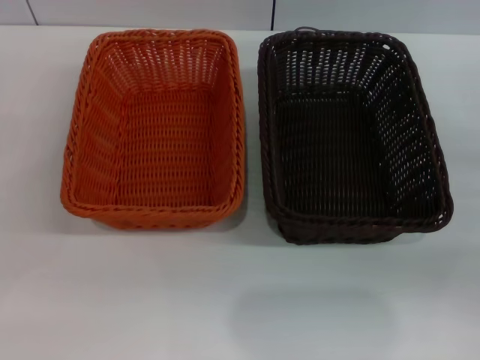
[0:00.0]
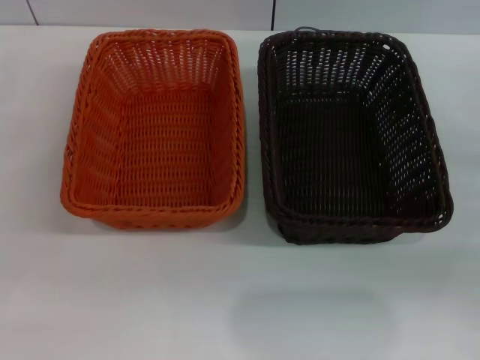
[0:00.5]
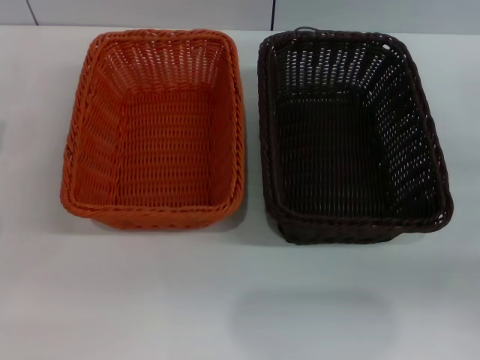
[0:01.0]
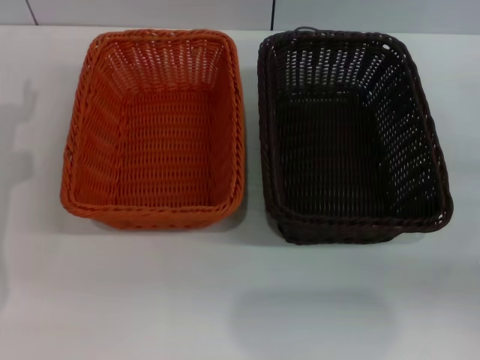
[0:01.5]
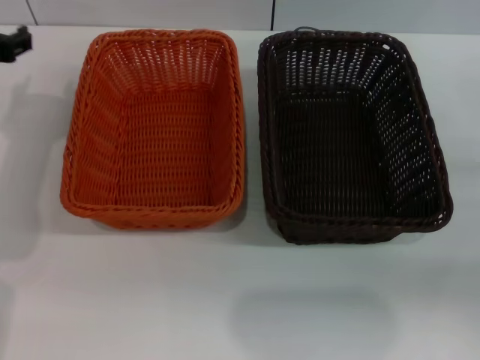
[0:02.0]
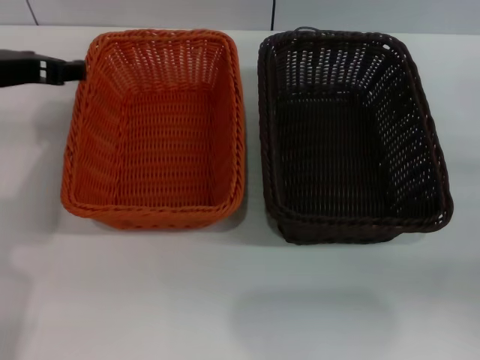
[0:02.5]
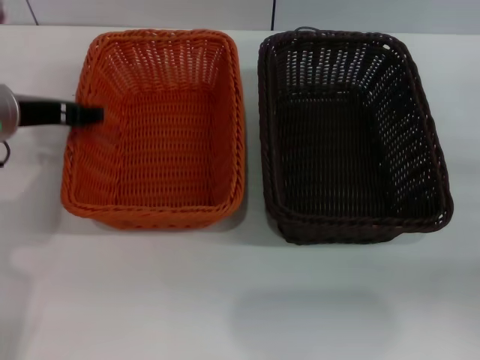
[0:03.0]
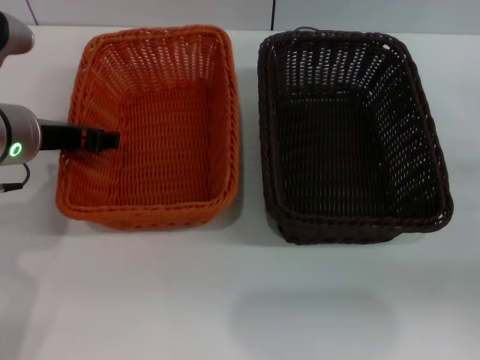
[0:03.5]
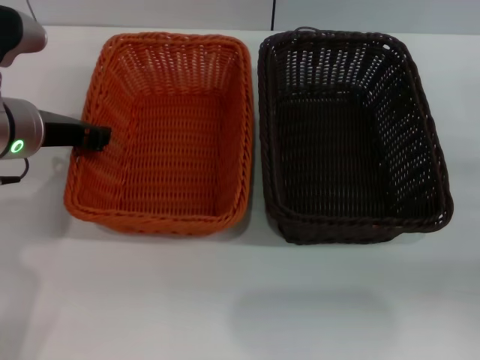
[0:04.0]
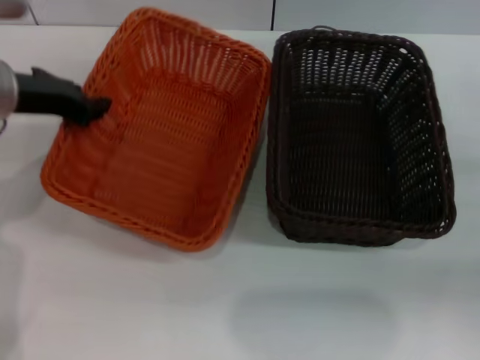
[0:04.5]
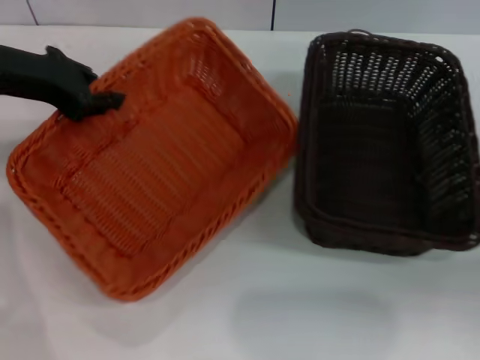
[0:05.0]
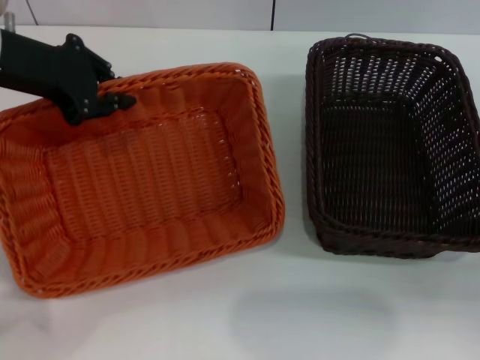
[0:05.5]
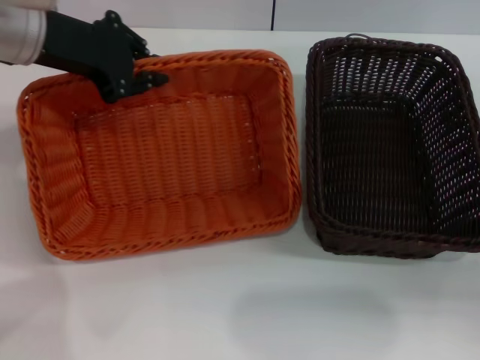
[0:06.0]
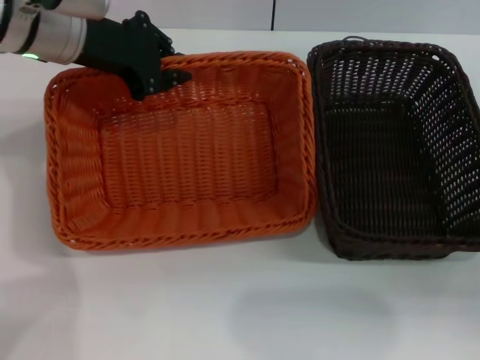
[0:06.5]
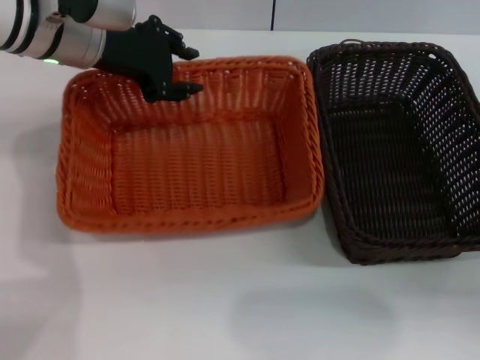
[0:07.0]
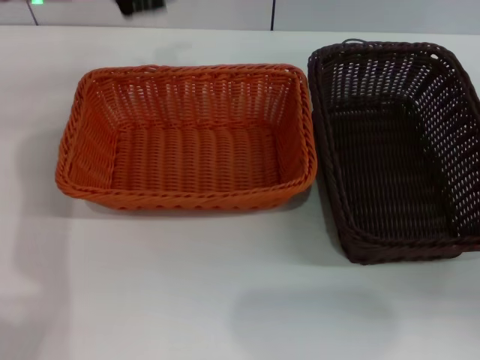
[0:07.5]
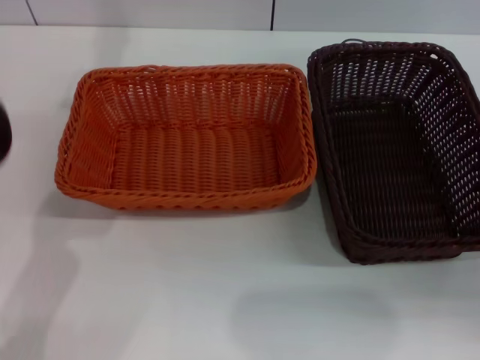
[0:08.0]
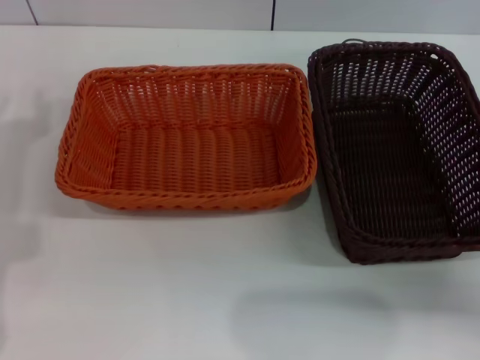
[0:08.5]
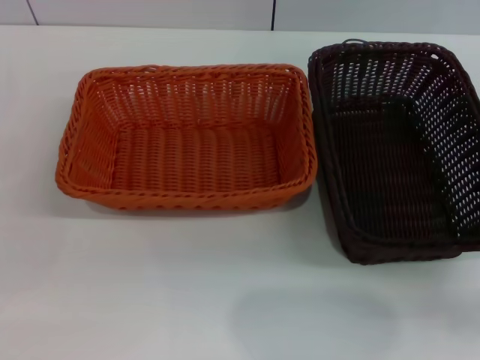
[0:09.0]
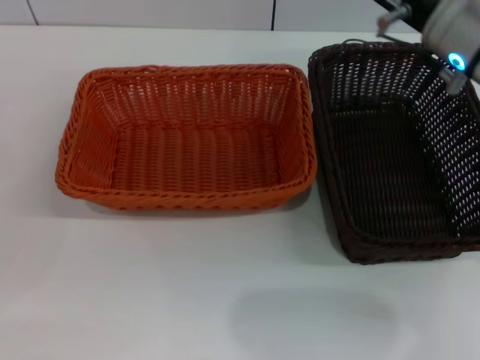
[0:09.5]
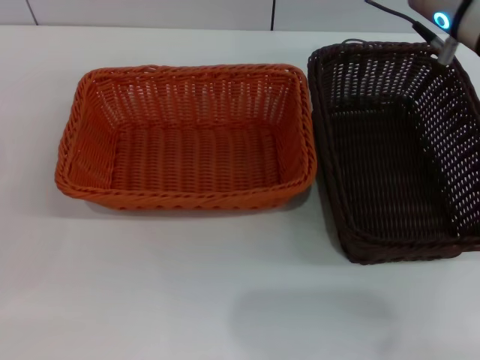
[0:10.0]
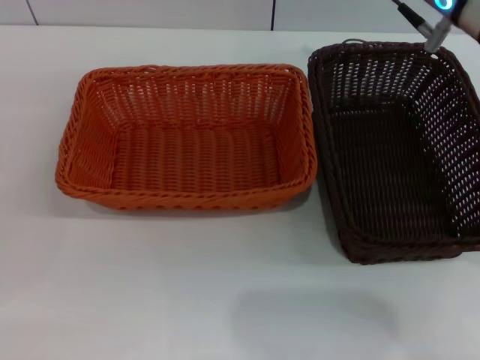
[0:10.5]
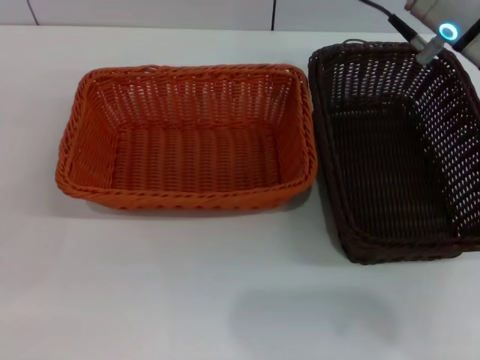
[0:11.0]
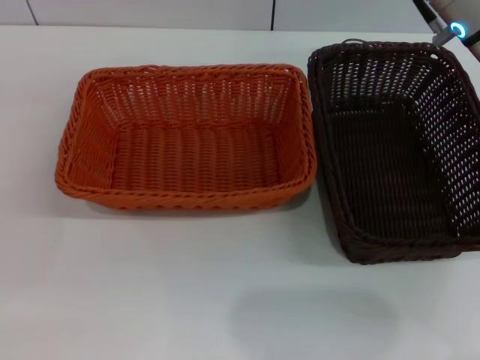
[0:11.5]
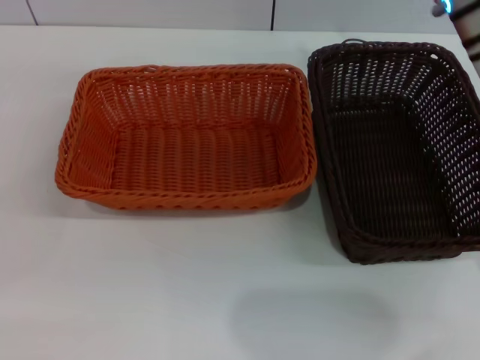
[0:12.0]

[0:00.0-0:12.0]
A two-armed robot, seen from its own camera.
Step, 0:00.0 to 0:04.5: Pick up the light basket with the left gripper.
Step, 0:05.0 to 0:07.0: Place the light basket in the center of view with the left gripper.
0:00.0 to 0:02.0: The left gripper shifts about 15 cm upward, forward and to the right.
0:02.0 to 0:04.0: The left gripper moves to the right, roughly 5 cm, and closes.
0:04.0 to 0:06.0: The left gripper moves upward and forward, some 10 cm, and closes up.
0:06.0 to 0:08.0: The left gripper opens.
0:08.0 to 0:10.0: The right gripper heads to the left, upward and forward, covering some 25 cm. The left gripper moves downward, backward and to the left, approximately 30 cm, and opens.

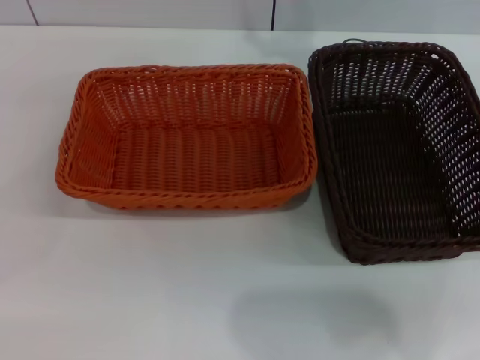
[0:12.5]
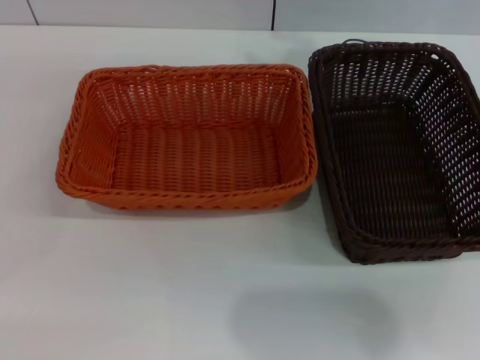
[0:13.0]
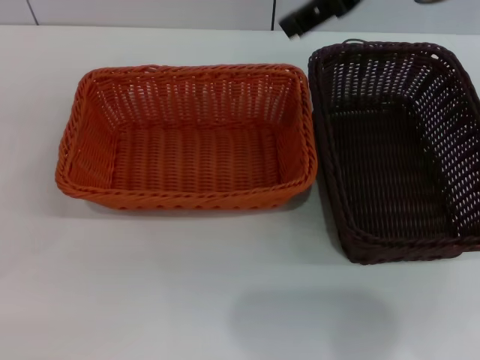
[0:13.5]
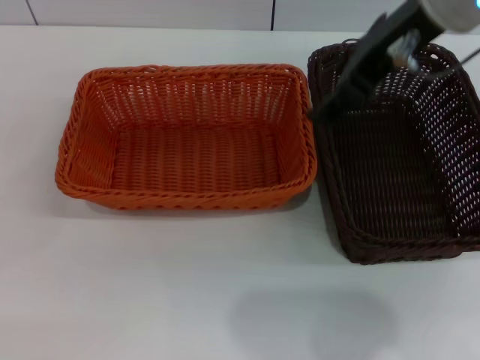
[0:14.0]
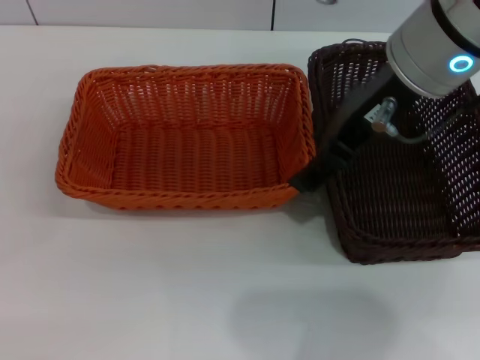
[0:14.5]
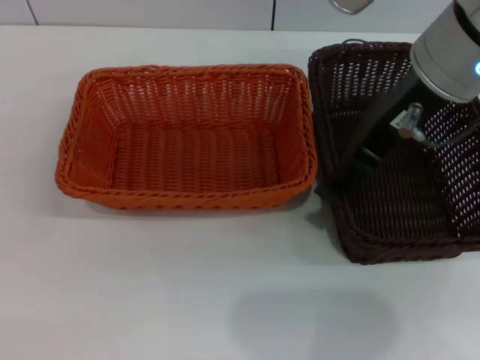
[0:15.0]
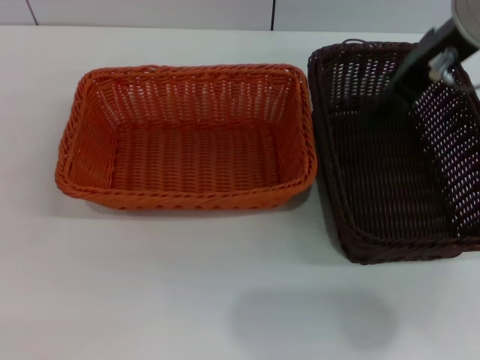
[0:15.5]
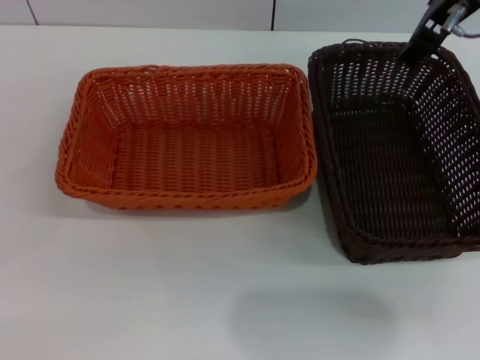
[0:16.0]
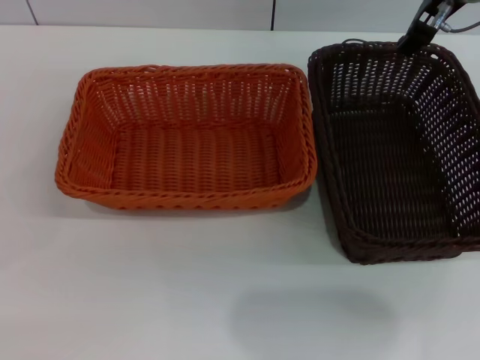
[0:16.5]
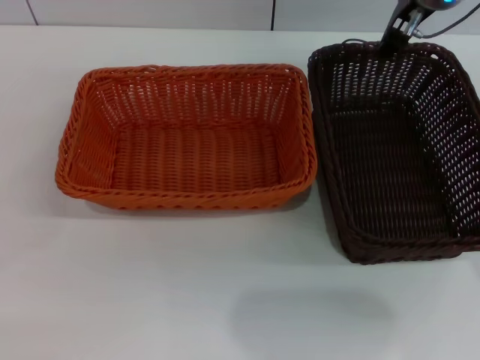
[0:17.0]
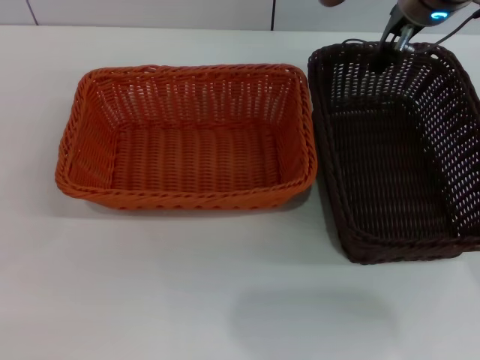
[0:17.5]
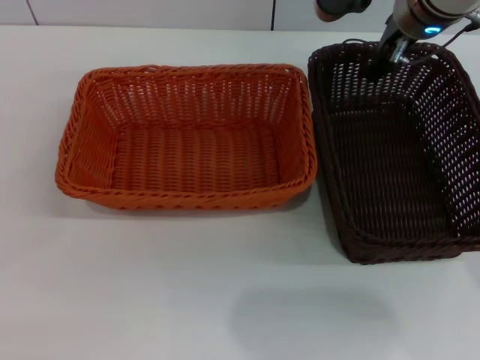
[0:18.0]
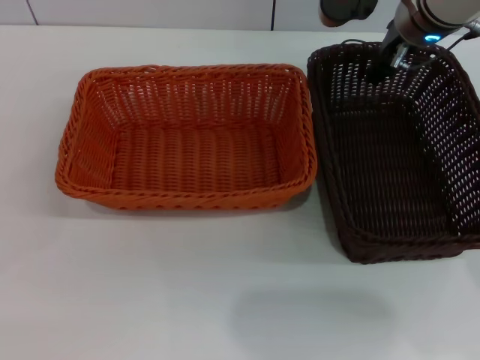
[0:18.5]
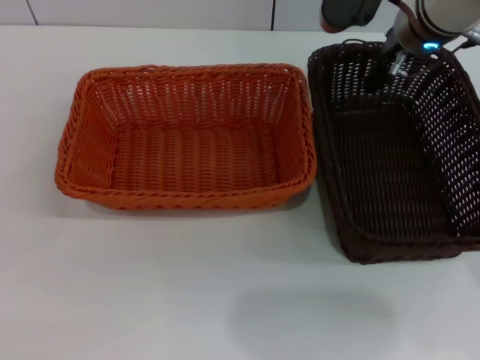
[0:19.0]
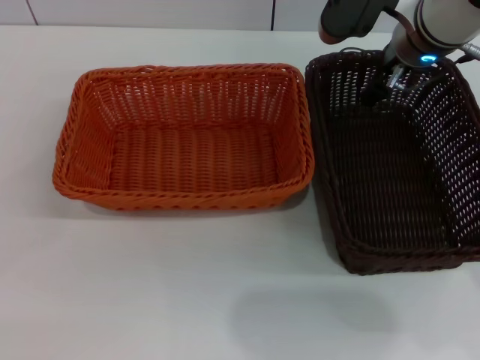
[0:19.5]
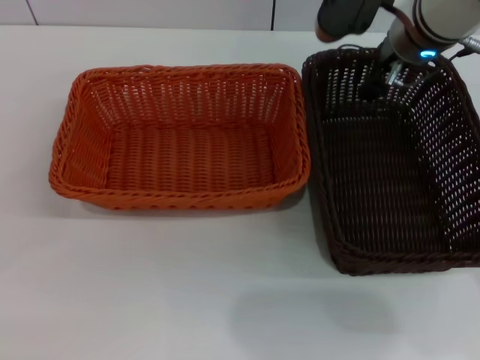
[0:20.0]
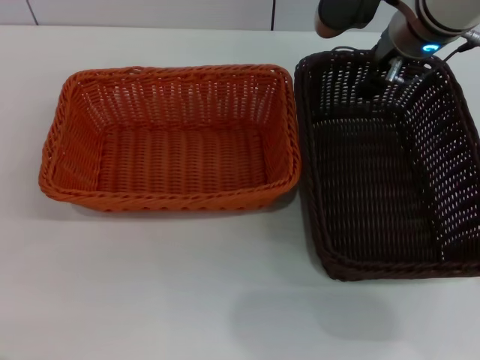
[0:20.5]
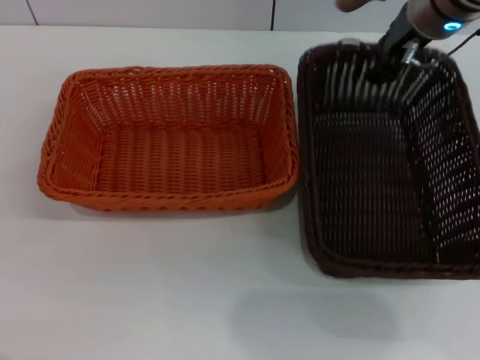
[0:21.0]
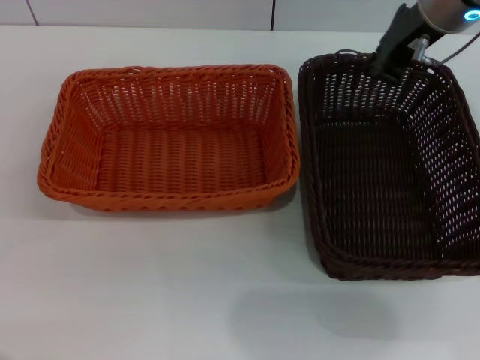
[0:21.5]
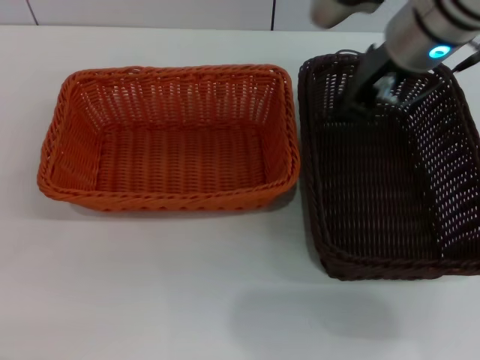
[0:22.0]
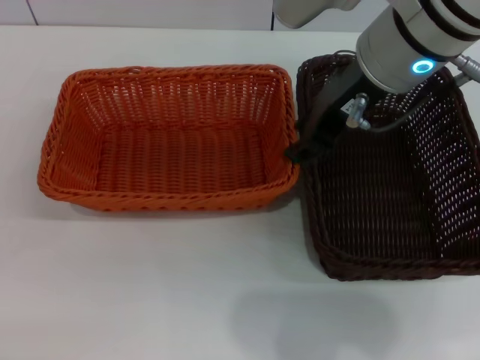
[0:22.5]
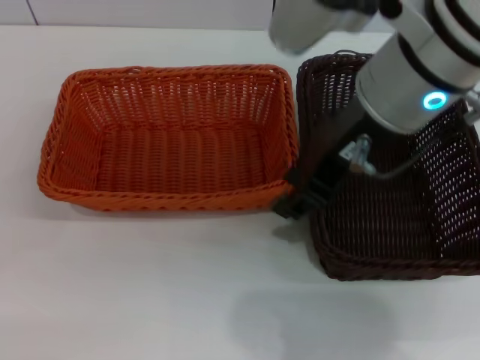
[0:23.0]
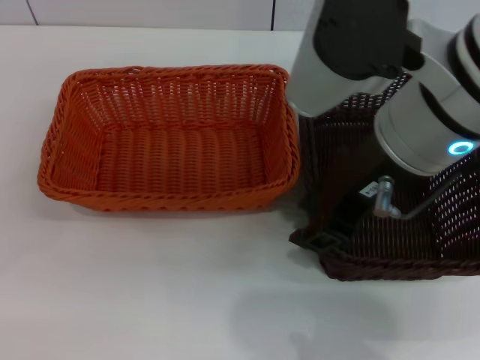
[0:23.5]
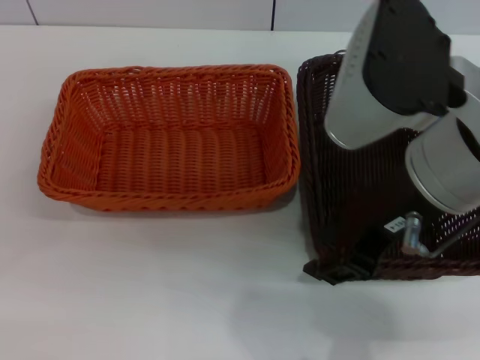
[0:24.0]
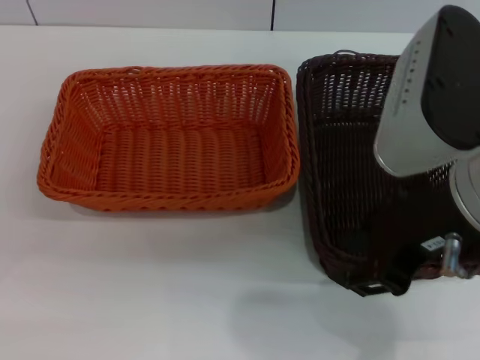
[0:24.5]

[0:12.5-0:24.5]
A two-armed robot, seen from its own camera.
0:12.5 to 0:14.5: The right gripper is displaced backward by approximately 10 cm.
0:14.5 to 0:16.5: The right gripper travels forward by about 10 cm.
0:16.5 to 0:18.5: The right gripper shifts approximately 5 cm downward.
0:18.5 to 0:20.5: The grippers make only small movements.
0:20.5 to 0:22.5: The right gripper goes about 10 cm backward and upward, and closes and opens again.
0:22.5 to 0:24.5: The right gripper is displaced backward and to the right by approximately 10 cm.

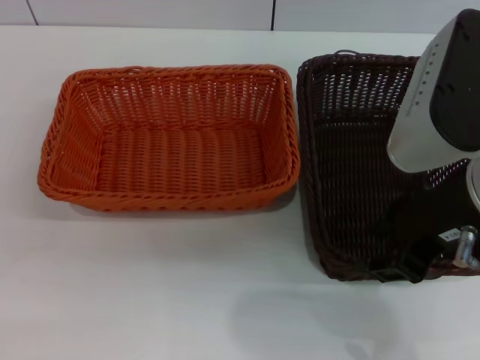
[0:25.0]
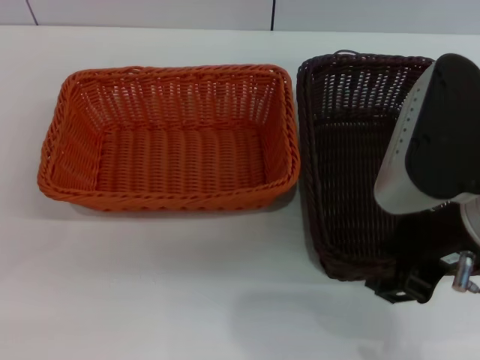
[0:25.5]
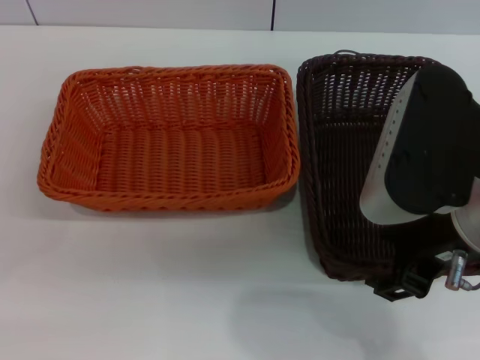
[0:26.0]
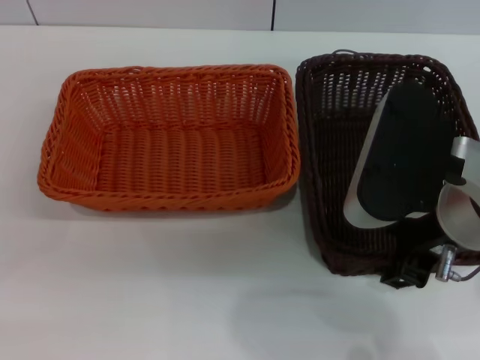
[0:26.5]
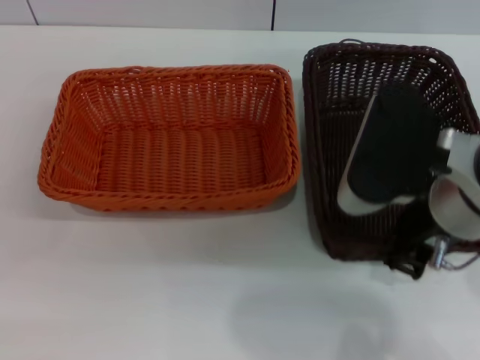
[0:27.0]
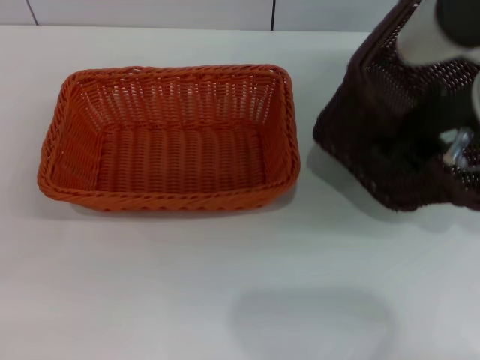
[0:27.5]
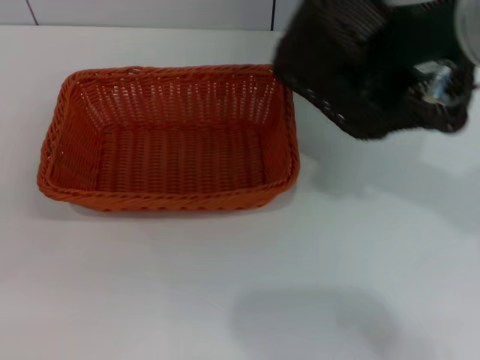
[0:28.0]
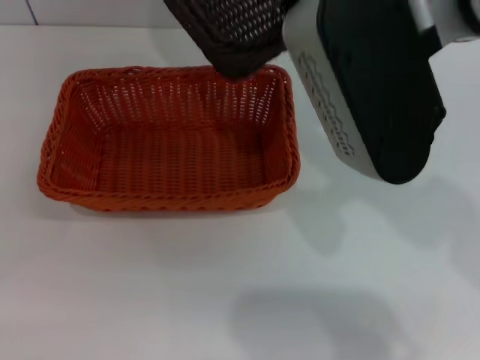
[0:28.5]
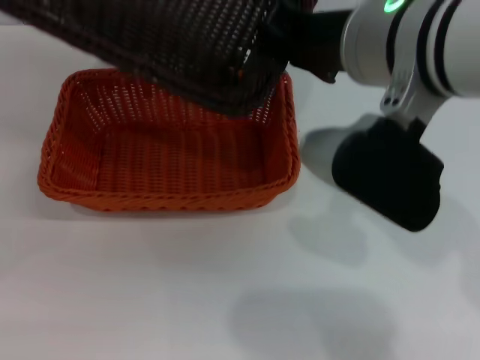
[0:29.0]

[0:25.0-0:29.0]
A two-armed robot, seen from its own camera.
Step, 0:25.0 to 0:27.0: Pick up the dark basket with the right gripper.
0:25.0 to 0:27.0: The right gripper changes place by about 5 cm.
0:27.0 to 0:29.0: The right gripper shifts some 10 cm upward and to the left, and closes its fingers.
